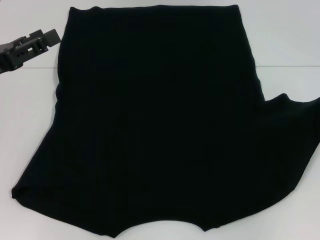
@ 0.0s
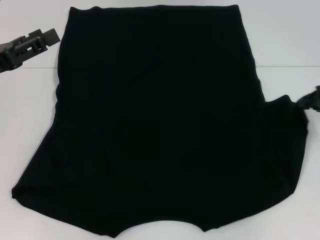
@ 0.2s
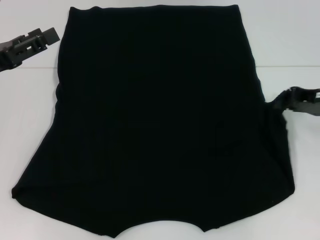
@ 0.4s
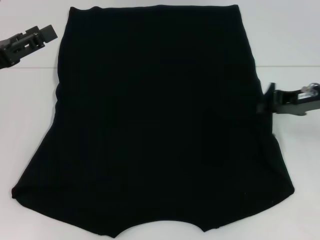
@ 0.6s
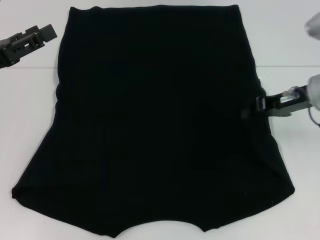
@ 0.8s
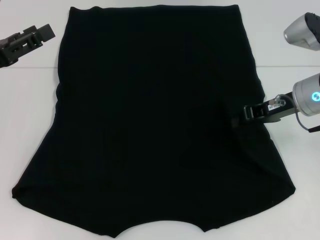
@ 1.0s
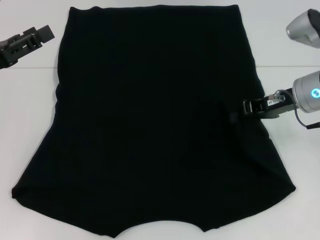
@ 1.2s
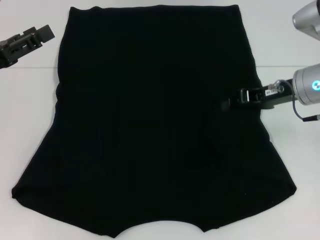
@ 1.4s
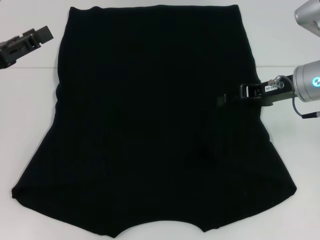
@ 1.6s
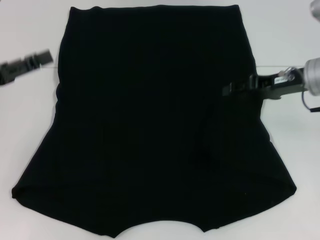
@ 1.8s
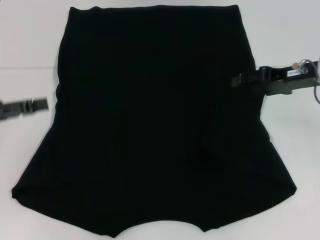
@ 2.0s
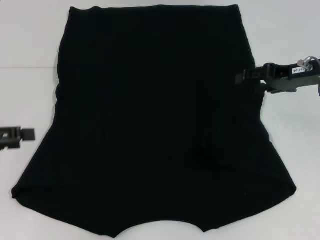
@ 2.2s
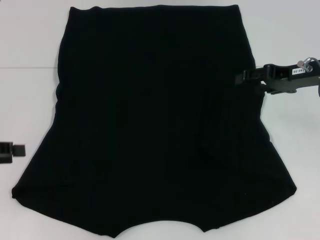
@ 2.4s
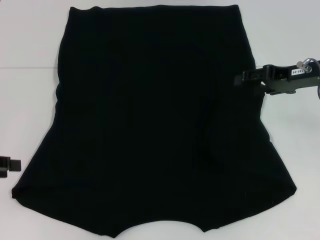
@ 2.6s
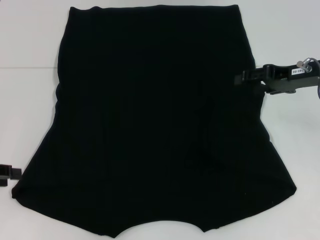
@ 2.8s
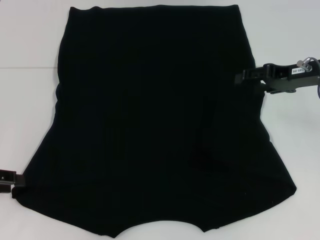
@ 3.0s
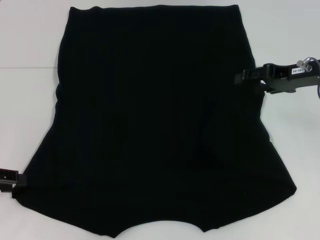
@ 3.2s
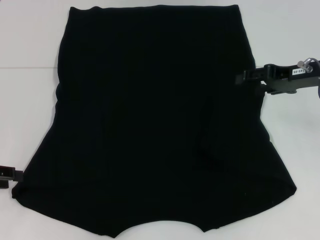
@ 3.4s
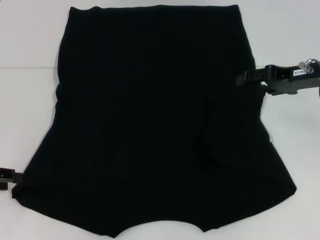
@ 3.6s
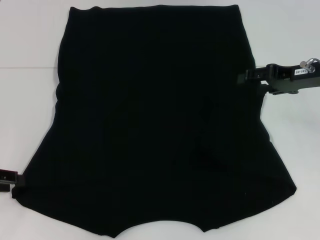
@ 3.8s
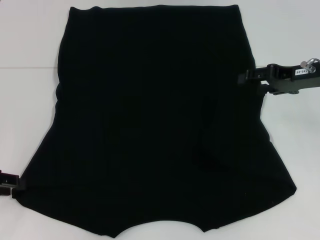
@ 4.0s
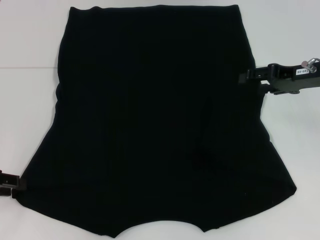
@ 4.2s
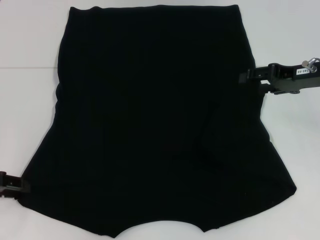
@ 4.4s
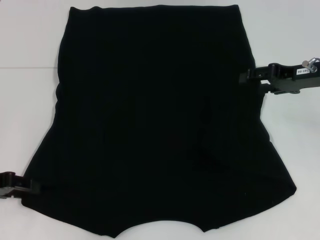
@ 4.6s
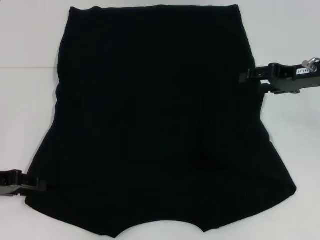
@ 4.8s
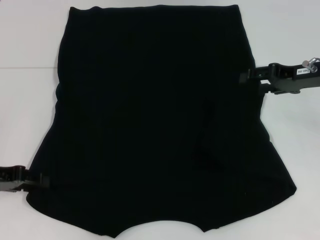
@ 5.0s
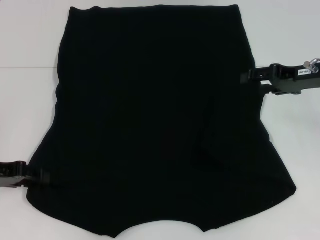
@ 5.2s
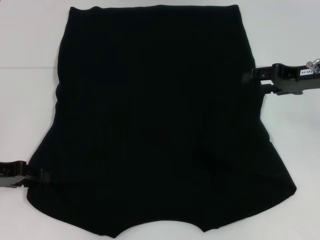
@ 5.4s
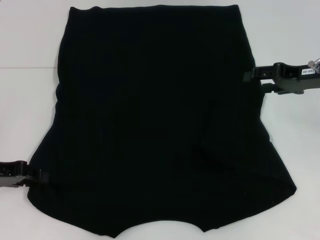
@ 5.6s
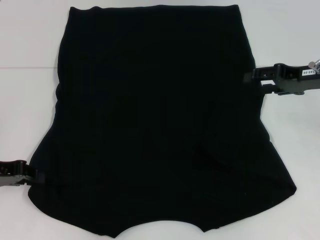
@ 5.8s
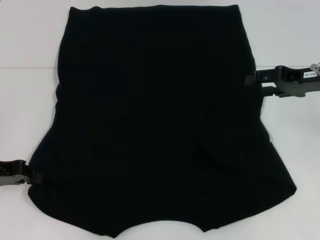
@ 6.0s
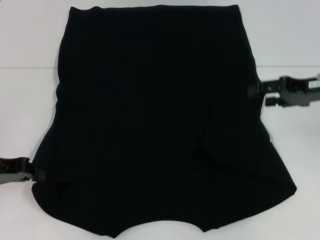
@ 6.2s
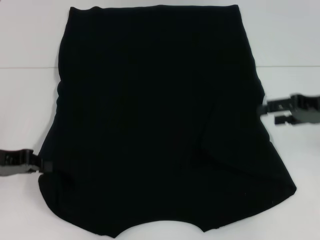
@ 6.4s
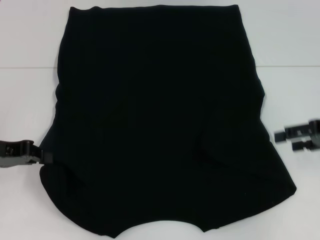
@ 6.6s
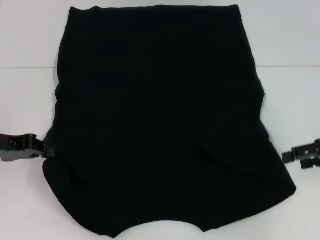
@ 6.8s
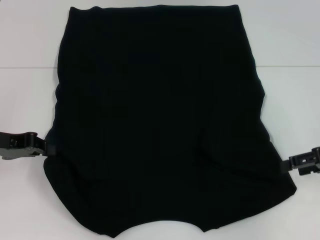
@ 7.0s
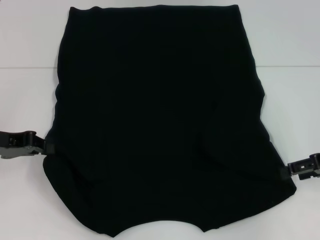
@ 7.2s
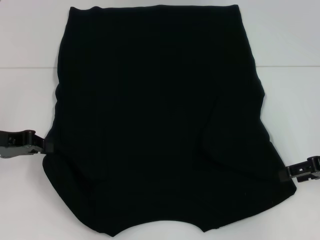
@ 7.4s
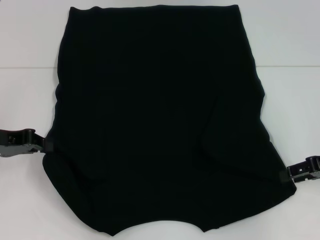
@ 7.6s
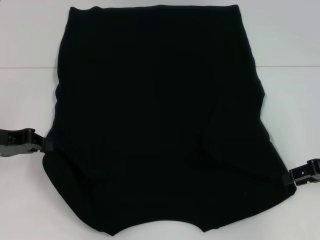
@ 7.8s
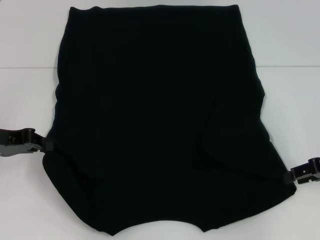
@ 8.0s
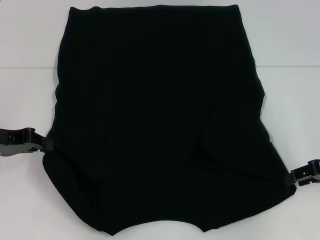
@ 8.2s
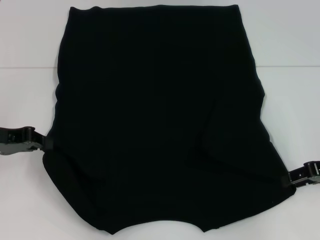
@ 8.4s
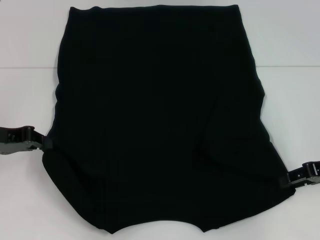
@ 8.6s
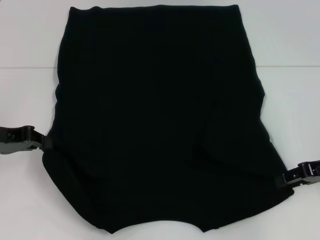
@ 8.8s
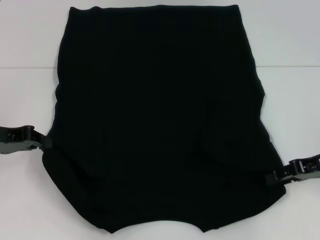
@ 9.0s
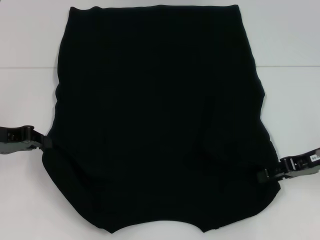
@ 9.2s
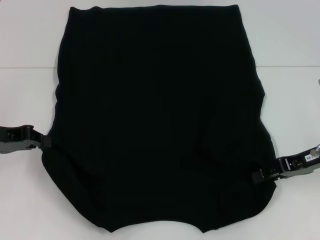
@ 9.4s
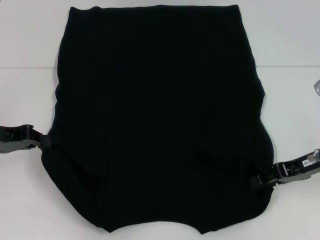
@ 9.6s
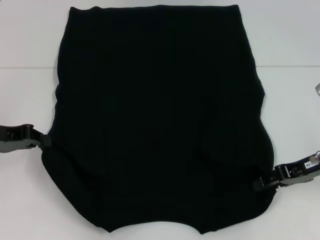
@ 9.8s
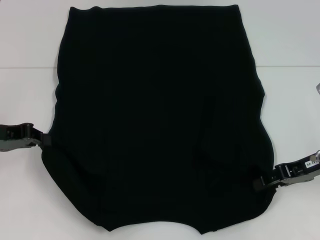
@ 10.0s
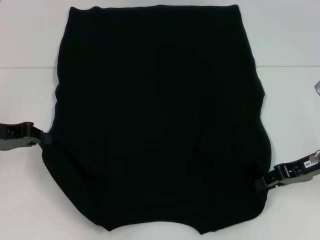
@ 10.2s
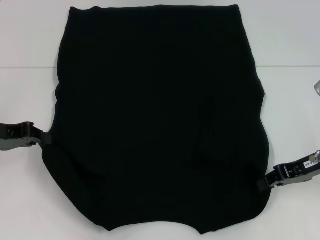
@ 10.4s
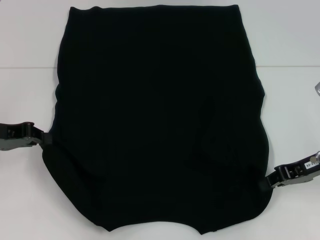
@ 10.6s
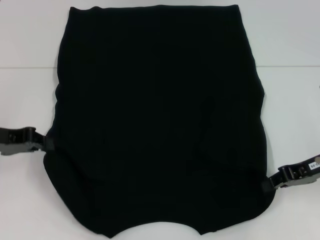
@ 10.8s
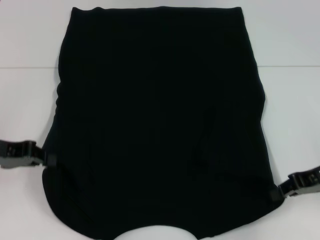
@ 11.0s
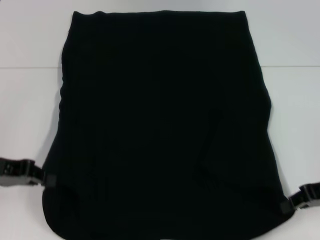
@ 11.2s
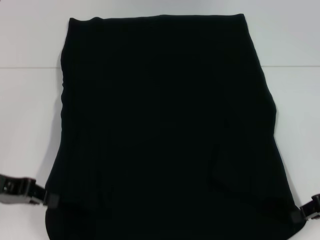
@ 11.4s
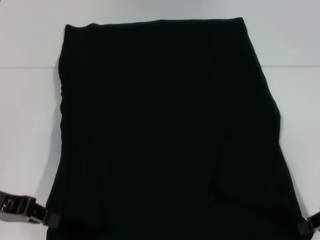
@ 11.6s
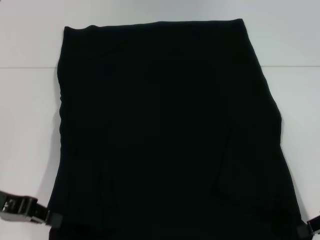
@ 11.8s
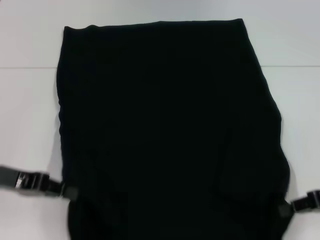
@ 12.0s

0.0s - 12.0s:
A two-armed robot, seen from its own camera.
Step, 1.8s - 6.4s: Grab the bottom left corner with your left hand.
Step, 6.6s - 11.0s: Grab the bottom right corner with your right hand.
0.0s - 1.6s: The right gripper travels to the left by some 15 cm.
1.6s - 3.0s: The left gripper changes place by roughly 10 cm; the right gripper opens up.
3.0s - 6.0s: There are only small adjustments of the grippers.
6.0s - 7.6s: The right gripper heads backward, covering approximately 5 cm.
7.6s - 10.4s: There are only small adjustments of the grippers.
10.4s - 12.0s: The right gripper heads backward, covering some 5 cm. Meanwhile the left gripper changes place by approximately 5 cm.

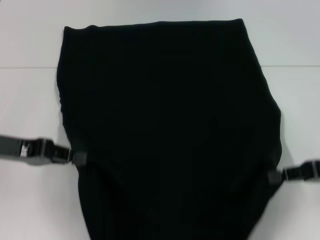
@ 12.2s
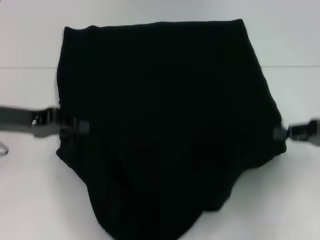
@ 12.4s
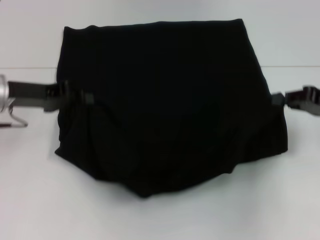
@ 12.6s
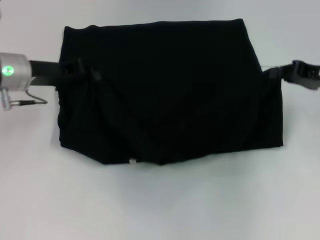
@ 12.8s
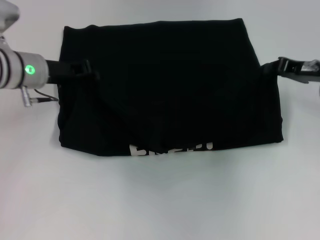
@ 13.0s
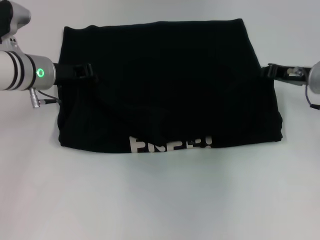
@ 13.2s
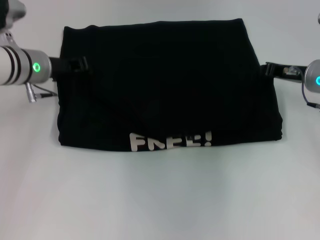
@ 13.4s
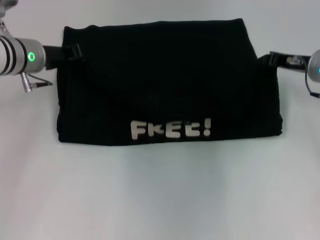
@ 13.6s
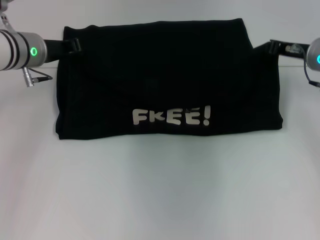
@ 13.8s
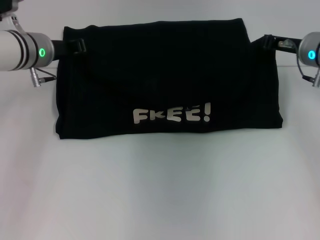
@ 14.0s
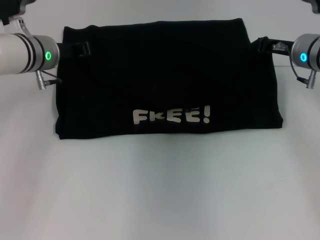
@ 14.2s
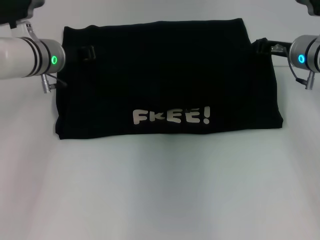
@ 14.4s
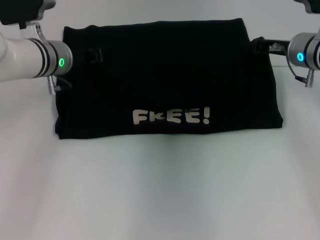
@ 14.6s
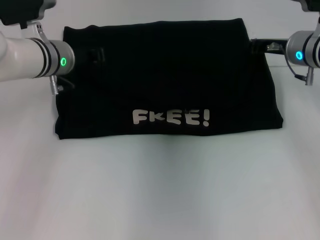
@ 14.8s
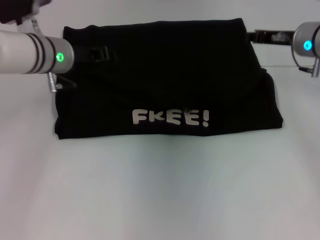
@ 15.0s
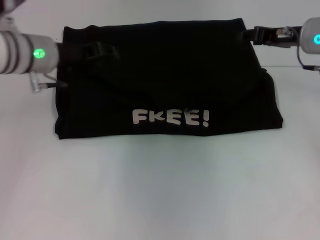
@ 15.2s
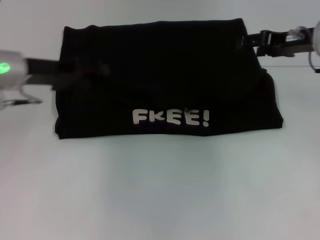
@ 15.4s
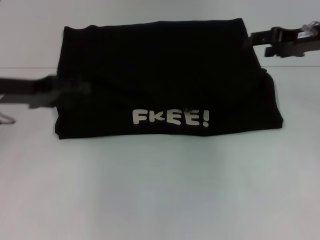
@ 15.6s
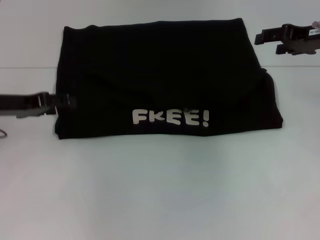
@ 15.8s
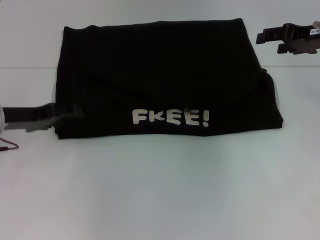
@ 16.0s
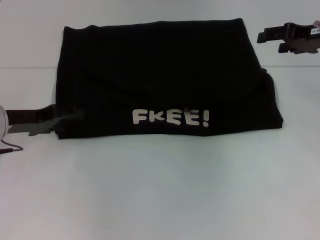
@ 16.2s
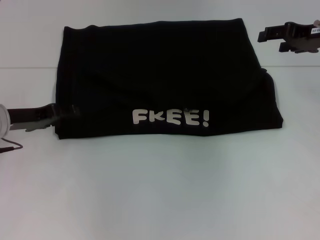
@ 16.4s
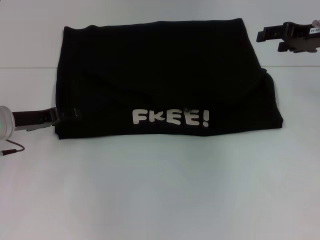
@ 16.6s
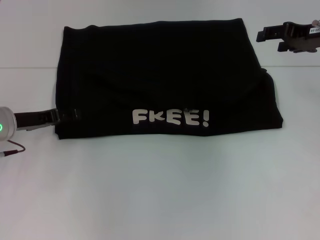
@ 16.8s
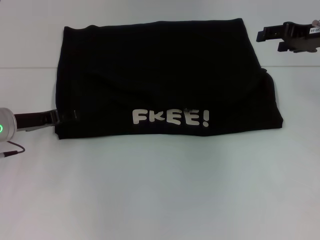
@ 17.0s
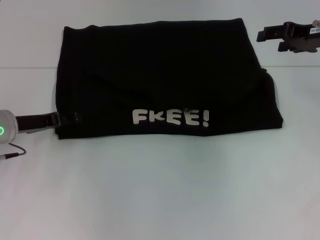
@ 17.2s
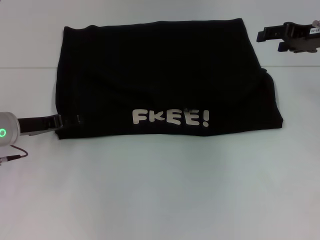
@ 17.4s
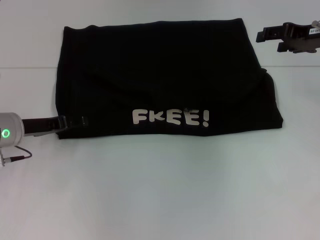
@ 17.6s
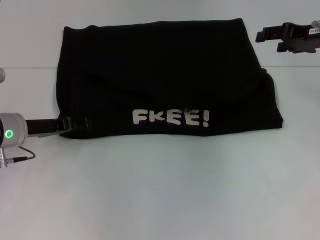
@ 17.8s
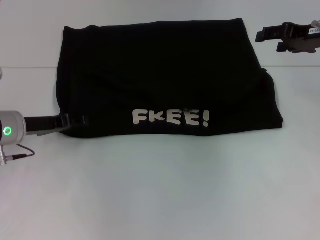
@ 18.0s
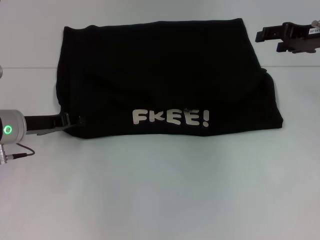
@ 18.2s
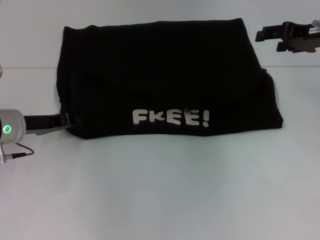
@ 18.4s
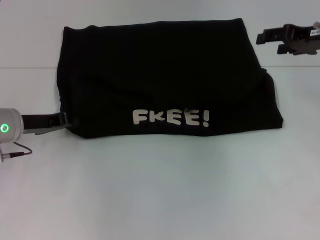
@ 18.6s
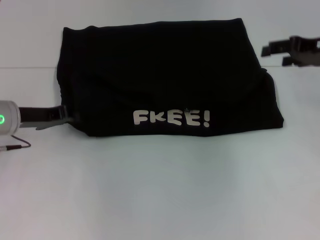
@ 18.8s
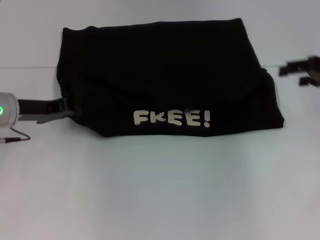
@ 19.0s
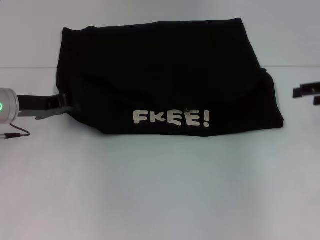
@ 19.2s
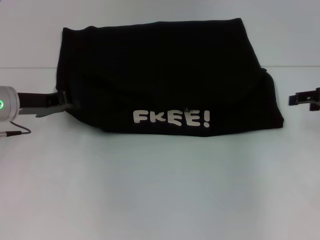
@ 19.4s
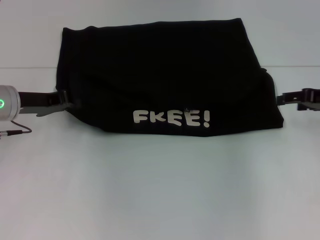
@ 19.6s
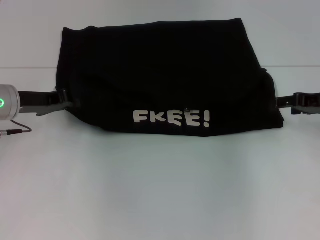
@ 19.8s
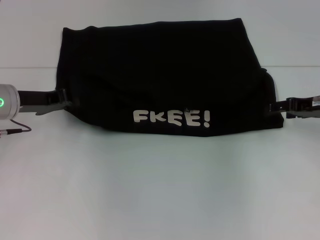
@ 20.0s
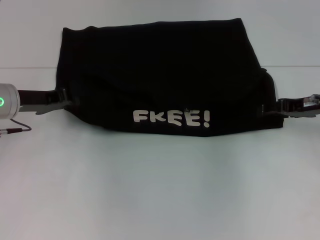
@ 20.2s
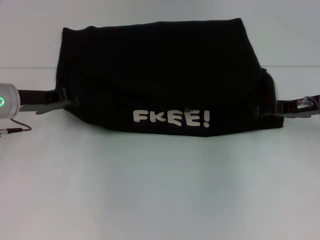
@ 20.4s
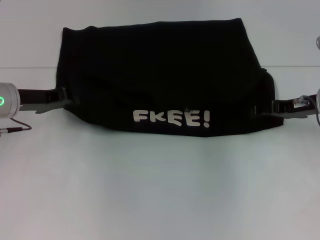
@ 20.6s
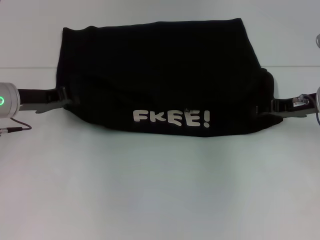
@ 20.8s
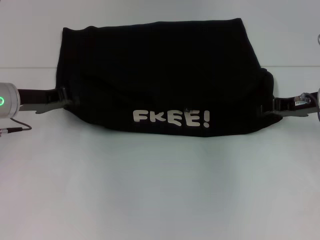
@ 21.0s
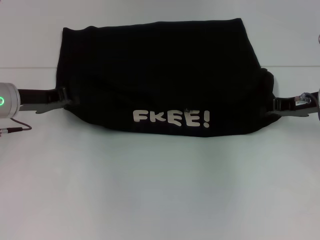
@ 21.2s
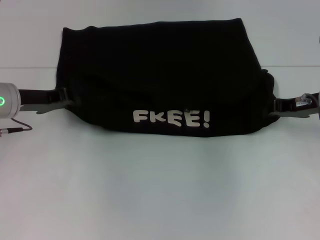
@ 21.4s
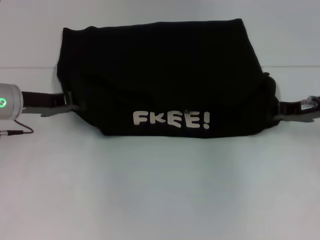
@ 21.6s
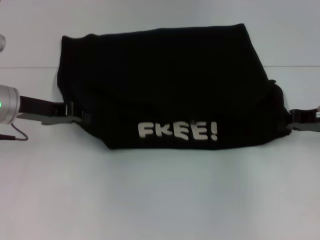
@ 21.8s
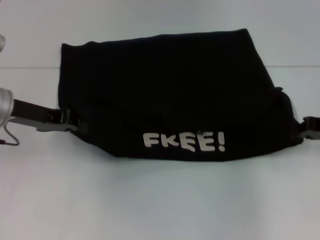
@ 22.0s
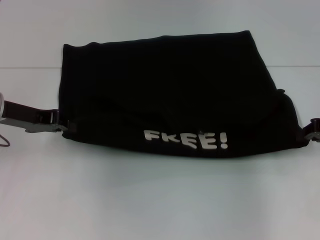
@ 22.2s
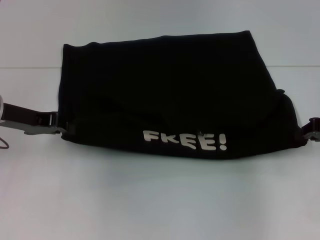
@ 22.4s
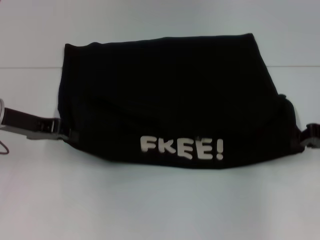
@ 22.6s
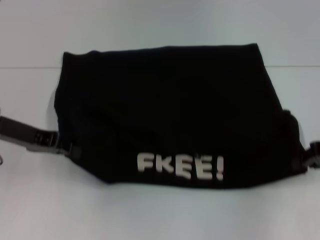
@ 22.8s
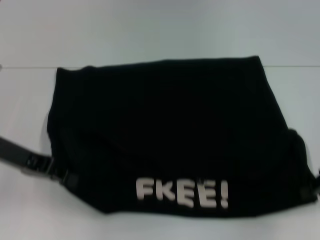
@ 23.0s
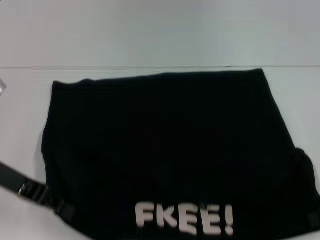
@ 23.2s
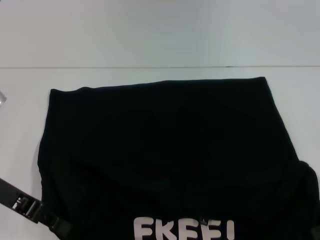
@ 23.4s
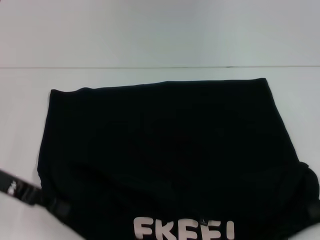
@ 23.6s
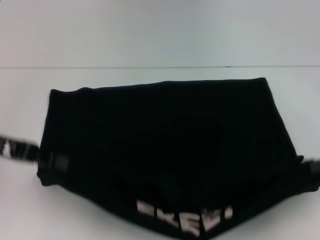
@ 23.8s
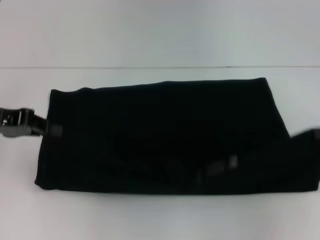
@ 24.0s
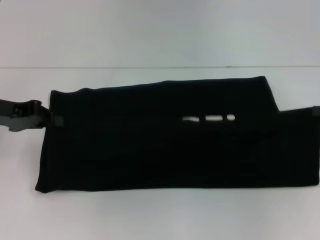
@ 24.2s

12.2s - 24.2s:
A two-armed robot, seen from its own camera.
Step, 12.2s - 15.0s: Fold the clothes with your left hand.
Step, 12.2s - 15.0s: Fold the clothes with your right hand.
Step, 15.2s - 23.2s: Pull the clothes with your left hand.
Step, 15.2s - 23.2s: Pull the clothes with your right hand.
12.2s - 13.8s: The right gripper moves forward, approximately 15 cm. Meanwhile the left gripper shifts approximately 15 cm forward and to the right.
13.8s - 15.2s: The right gripper opens, while the left gripper opens its fingers.
15.2s - 16.6s: The right gripper changes place by some 5 cm, and opens its fingers. Meanwhile the left gripper heads downward, to the left and backward, covering approximately 15 cm, and opens its fingers.
16.6s - 18.2s: The left gripper closes.
18.2s - 19.8s: The right gripper shifts approximately 5 cm downward; the left gripper closes.
19.8s - 21.2s: The right gripper closes up.
21.2s - 22.6s: The right gripper heads to the right and backward, covering some 5 cm, and closes.
22.6s - 24.2s: The right gripper moves some 10 cm backward and comes back.
